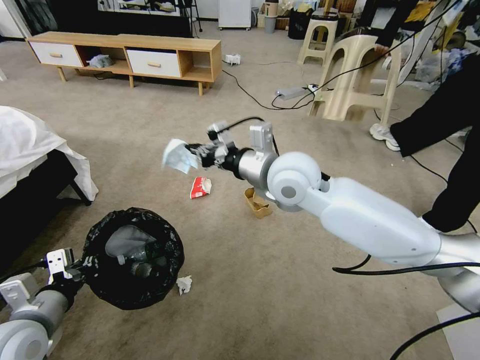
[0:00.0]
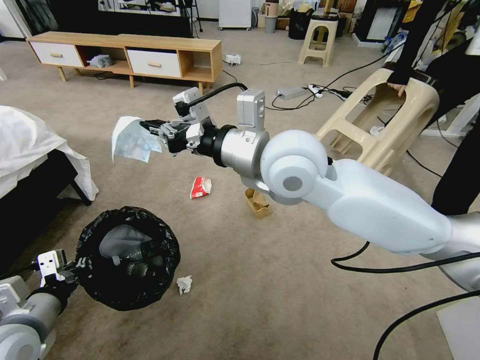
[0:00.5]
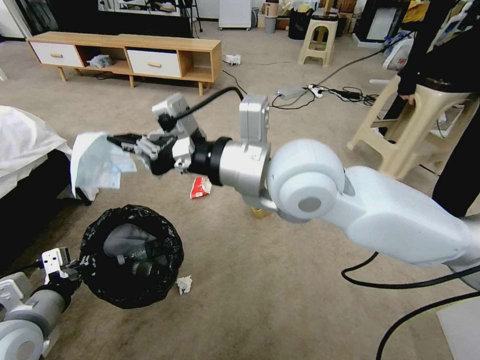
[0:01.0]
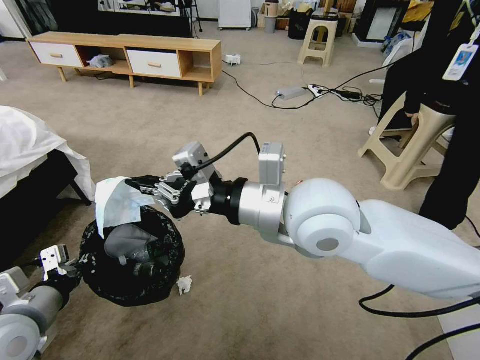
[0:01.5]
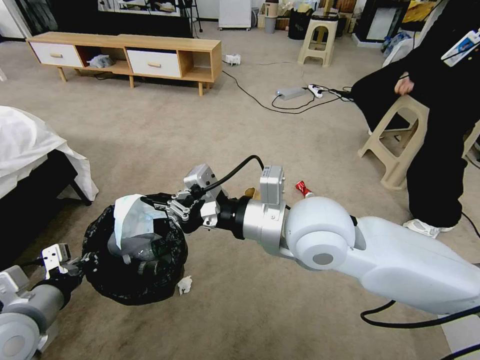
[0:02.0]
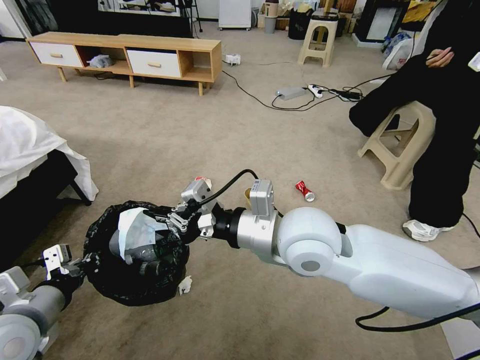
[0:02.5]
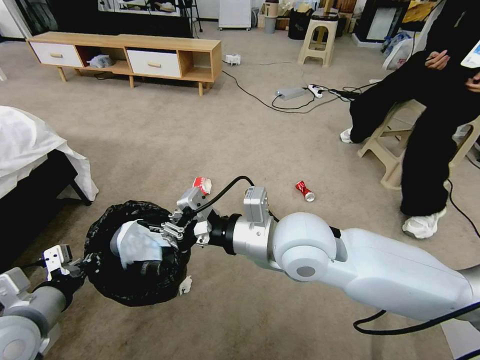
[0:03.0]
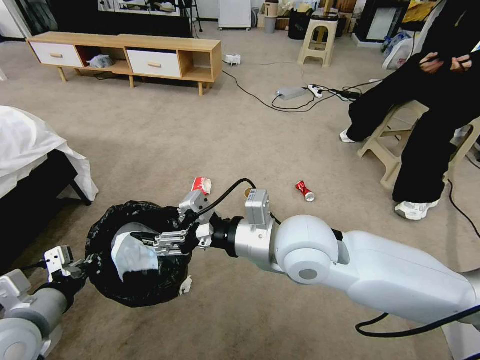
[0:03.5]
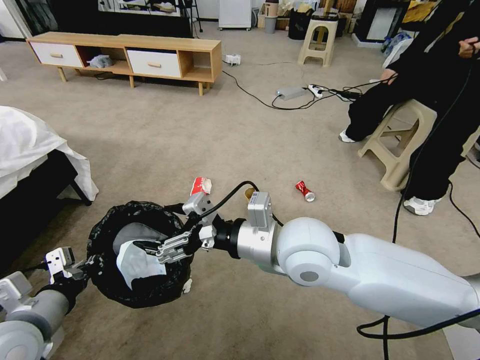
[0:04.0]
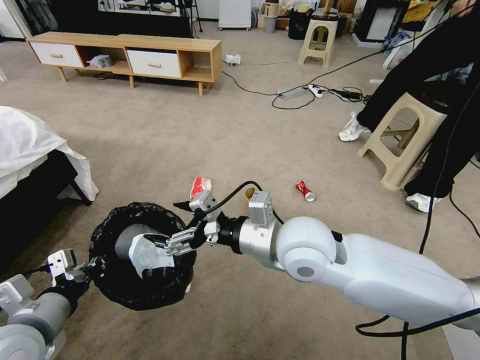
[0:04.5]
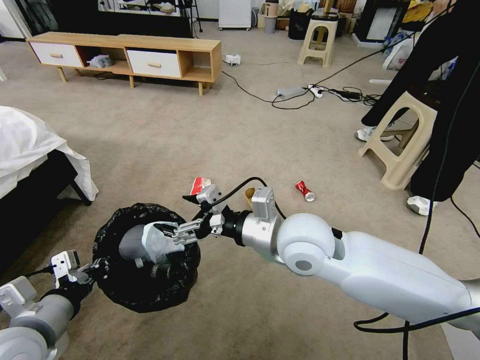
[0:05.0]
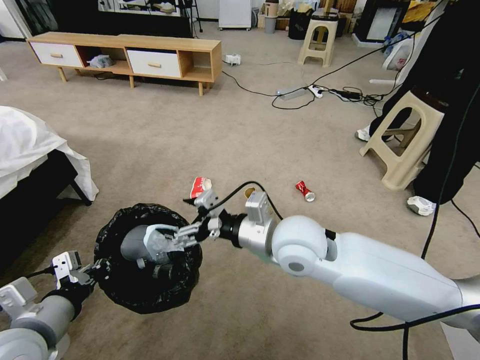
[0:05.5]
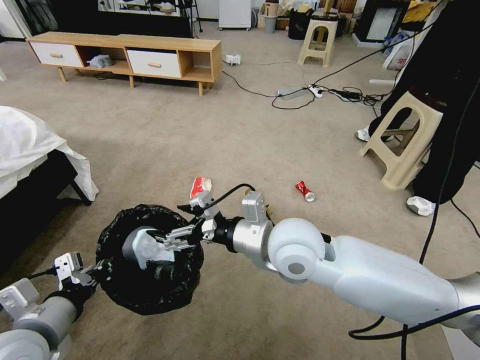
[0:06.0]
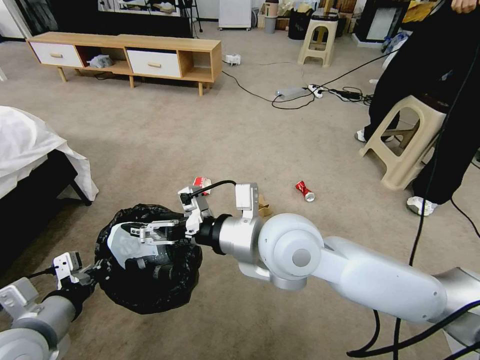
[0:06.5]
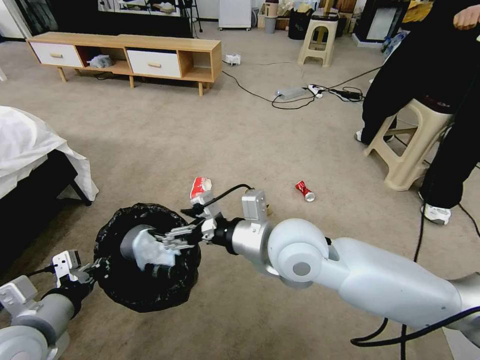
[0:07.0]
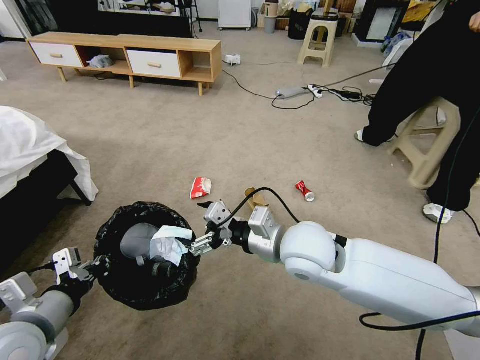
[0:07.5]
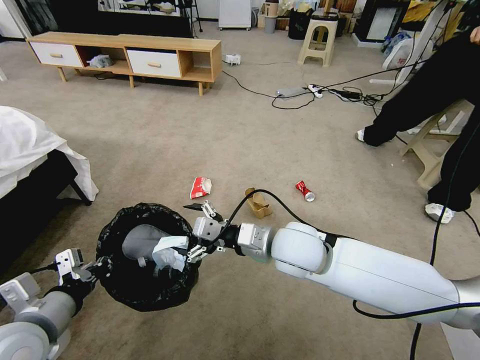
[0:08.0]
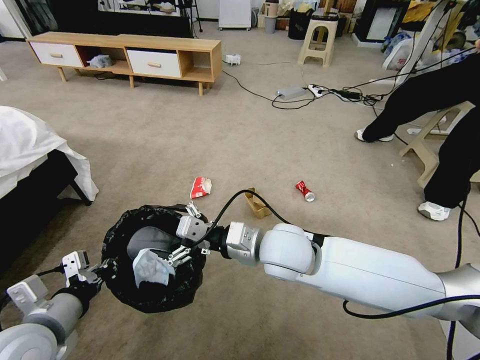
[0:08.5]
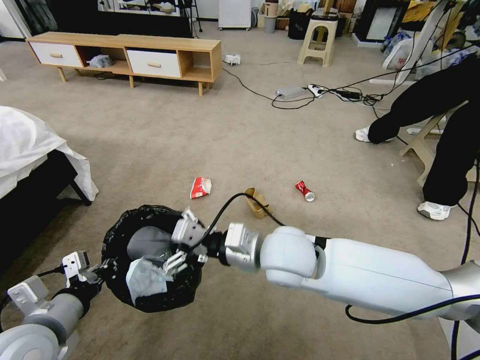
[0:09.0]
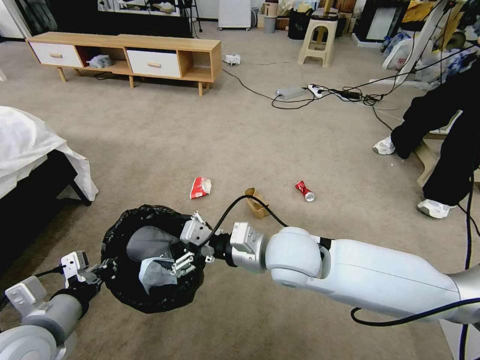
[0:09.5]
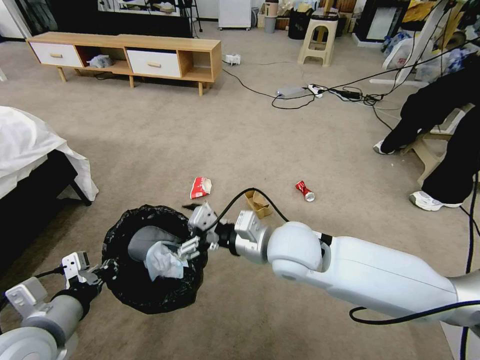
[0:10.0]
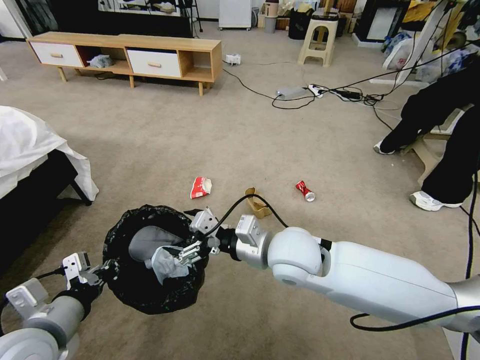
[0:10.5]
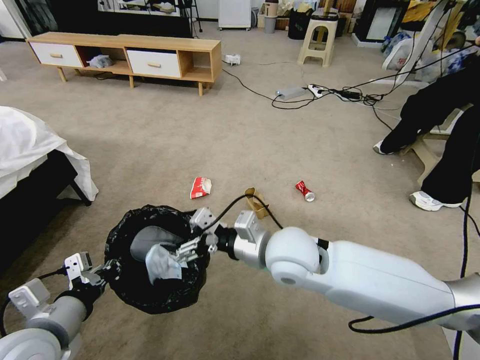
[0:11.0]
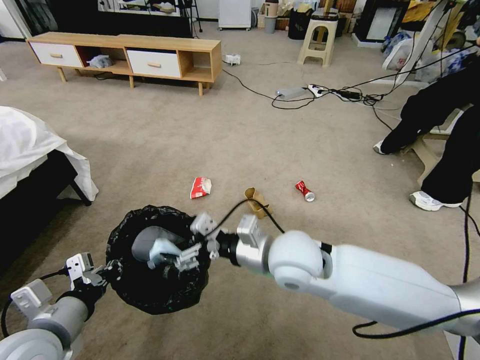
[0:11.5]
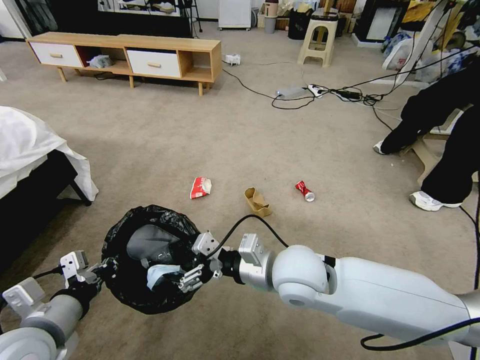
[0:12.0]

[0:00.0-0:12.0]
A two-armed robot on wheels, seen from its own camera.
Task of the whole recording: Pick up the trash bin, then pick up the garbage from the floor and place it into the trash bin.
0:00.0 to 0:02.0: The right gripper is displaced backward by approximately 10 cm.
0:02.0 to 0:04.0: The right gripper opens its fingers.
0:04.0 to 0:06.0: The grippers move only a little.
0:06.0 to 0:08.0: The right gripper ends up about 5 cm from where it was.
0:08.0 to 0:10.0: The grippers make only small movements.
0:10.0 to 0:12.0: The grippers make only small movements.

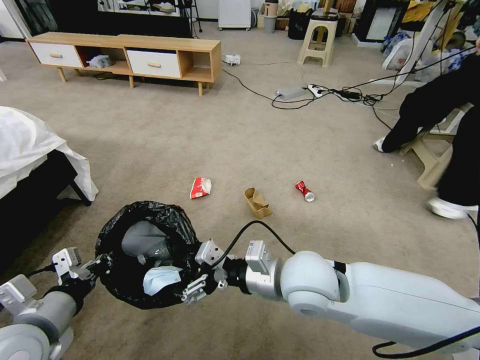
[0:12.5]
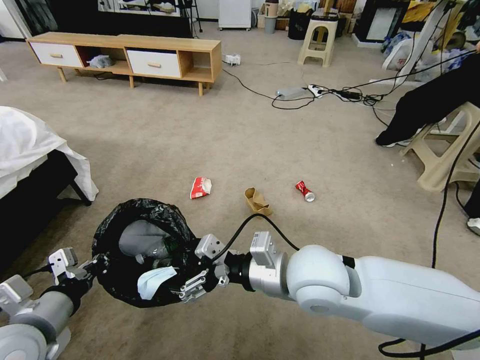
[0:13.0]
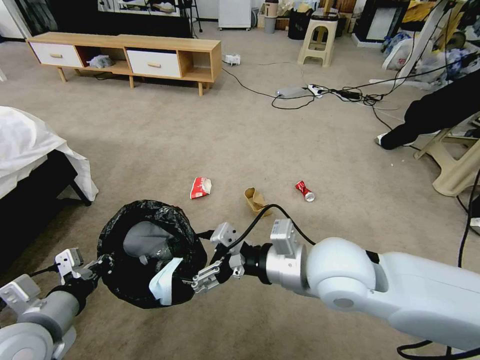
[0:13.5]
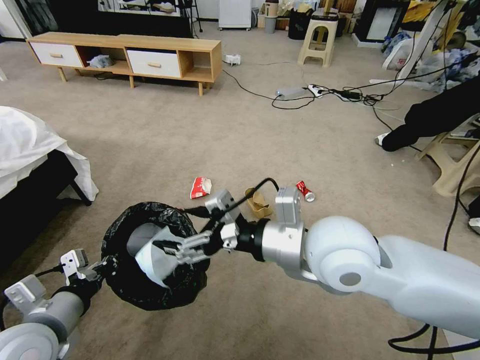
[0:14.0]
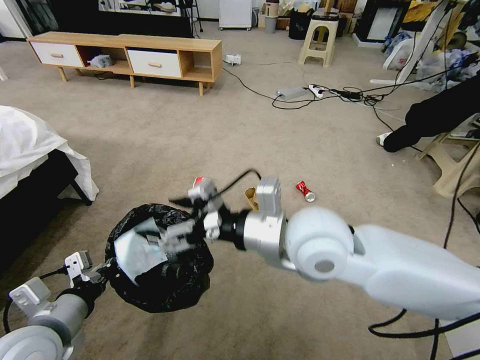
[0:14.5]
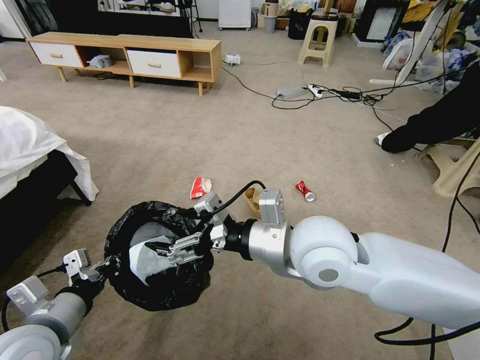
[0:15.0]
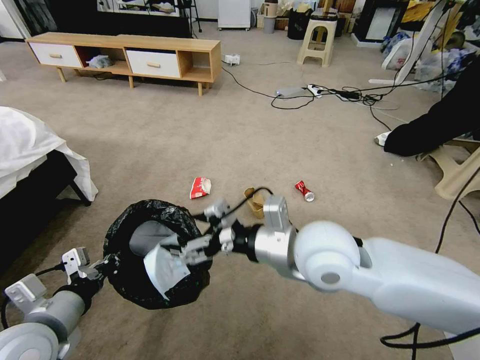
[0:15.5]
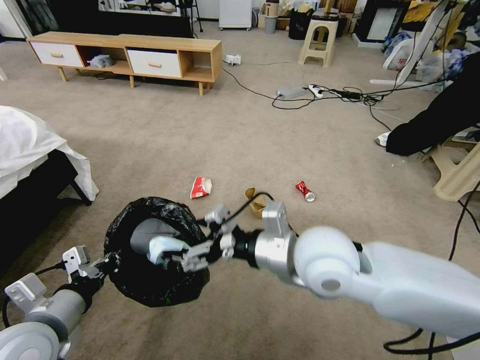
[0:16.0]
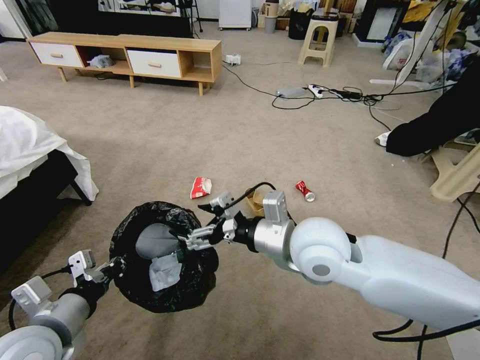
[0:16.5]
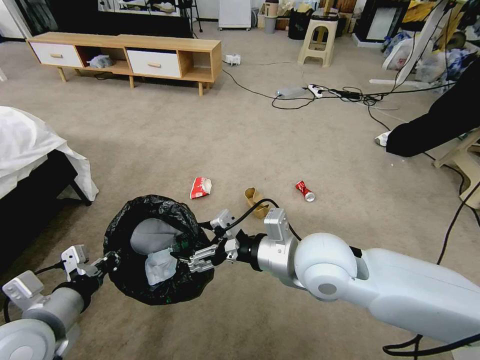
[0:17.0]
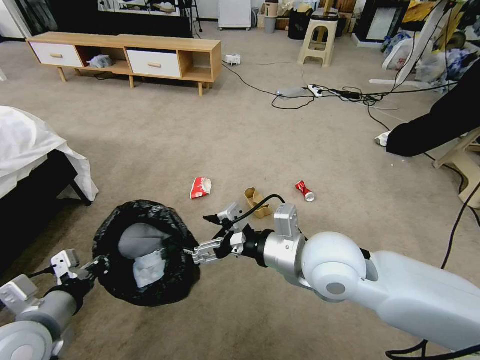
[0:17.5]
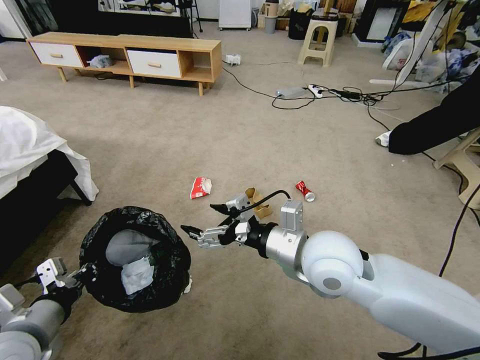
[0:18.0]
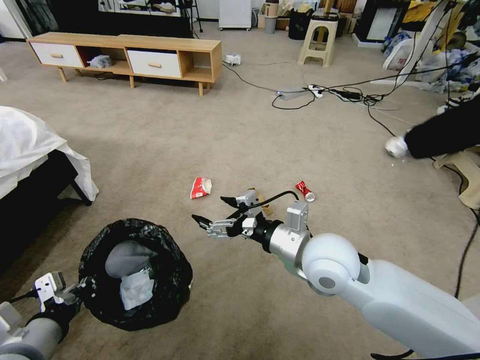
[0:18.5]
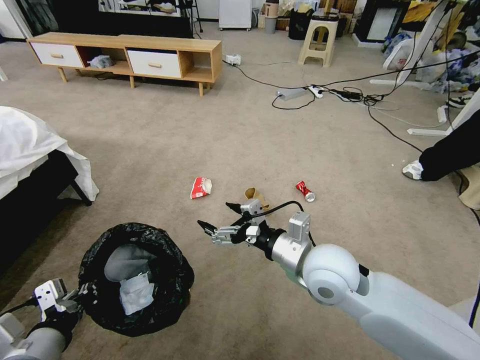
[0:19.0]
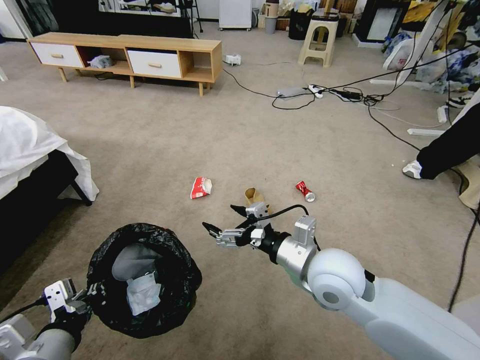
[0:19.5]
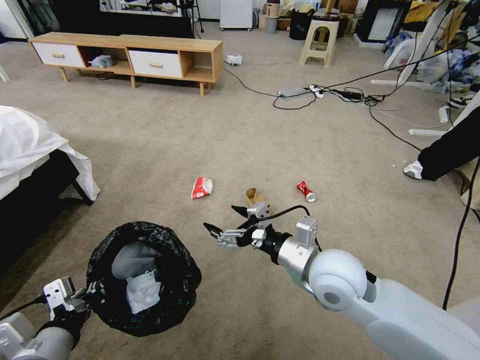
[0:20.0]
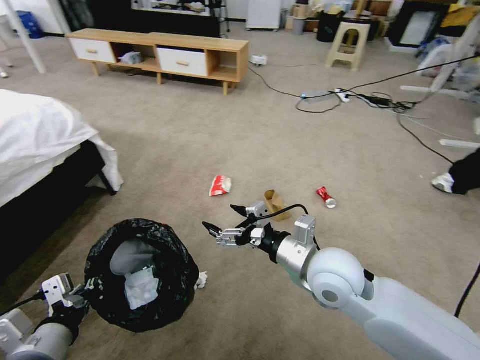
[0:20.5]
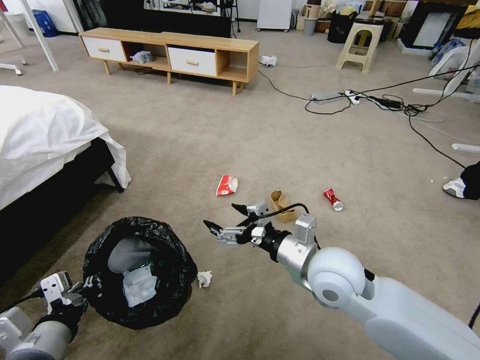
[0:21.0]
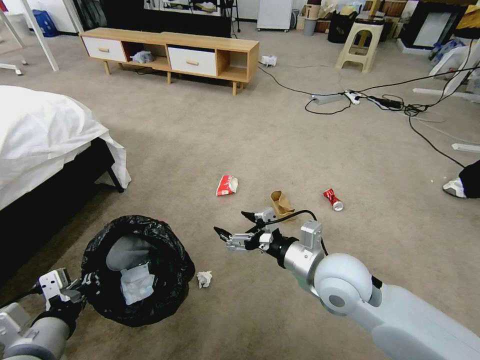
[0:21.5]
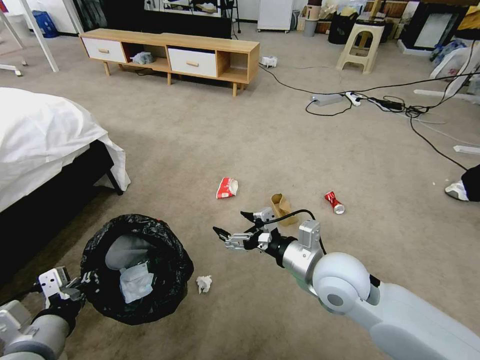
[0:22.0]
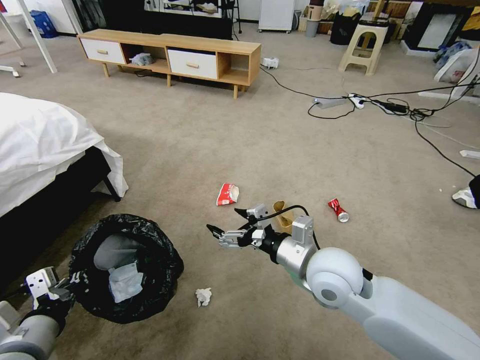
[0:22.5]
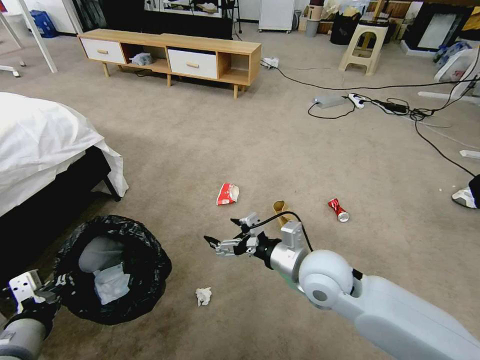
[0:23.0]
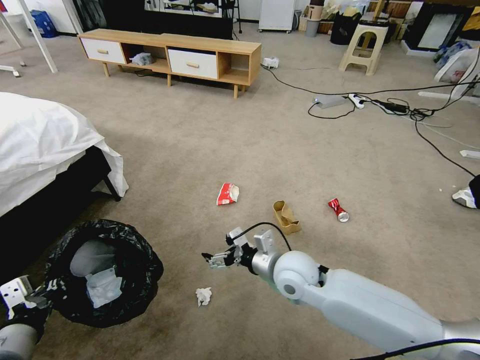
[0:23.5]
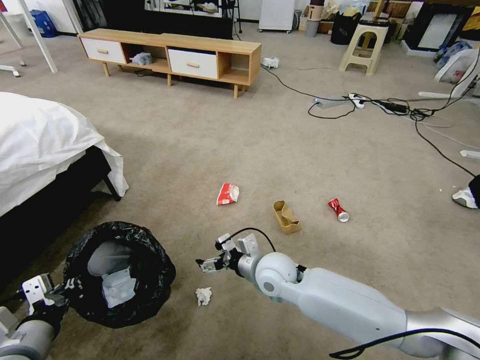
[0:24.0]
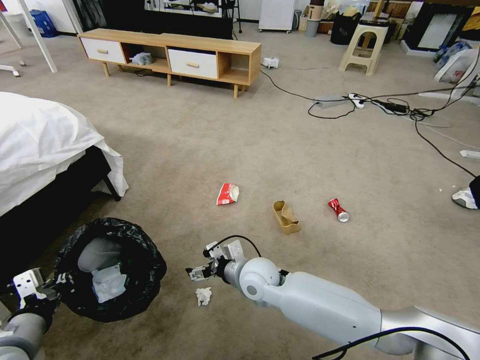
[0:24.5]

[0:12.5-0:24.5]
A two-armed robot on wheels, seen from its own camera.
Task of the whole recording: Pick up the trash bin, then pick up the garbage from the floor and place it into the trash bin.
0:12.5 to 0:14.5: The right gripper heads upward, covering approximately 10 cm.
0:14.5 to 0:16.5: The grippers stay close to where they were, moving slightly.
0:22.5 to 0:24.5: The right gripper goes roughly 20 cm downward, to the left and forward.

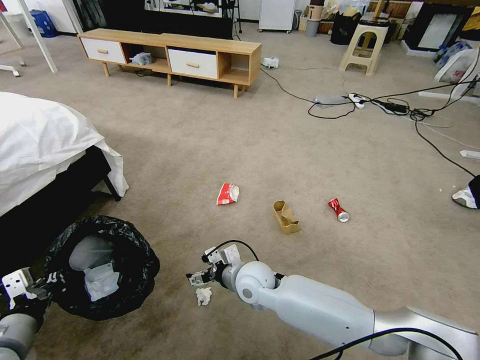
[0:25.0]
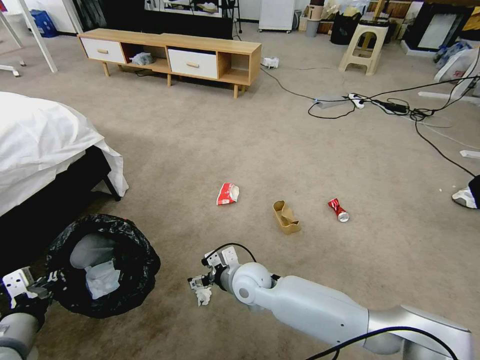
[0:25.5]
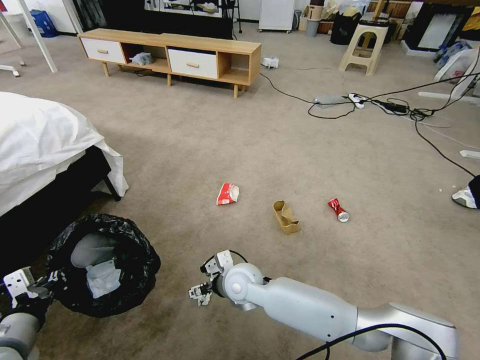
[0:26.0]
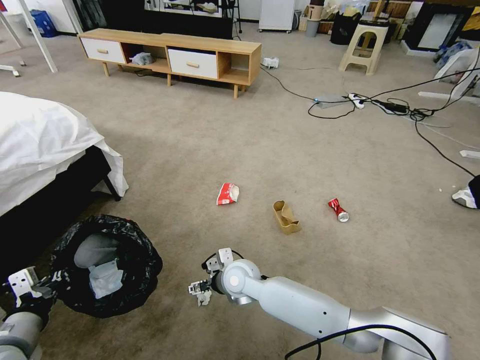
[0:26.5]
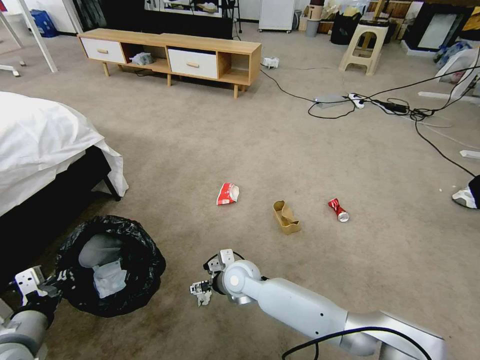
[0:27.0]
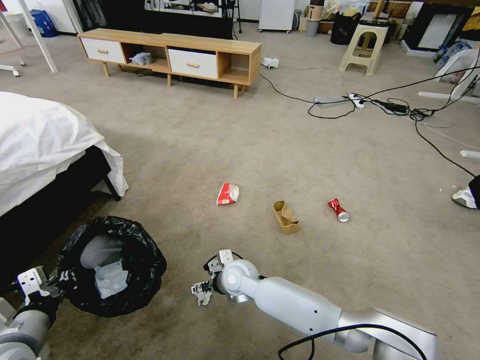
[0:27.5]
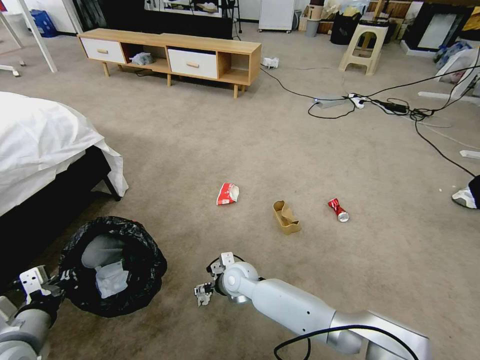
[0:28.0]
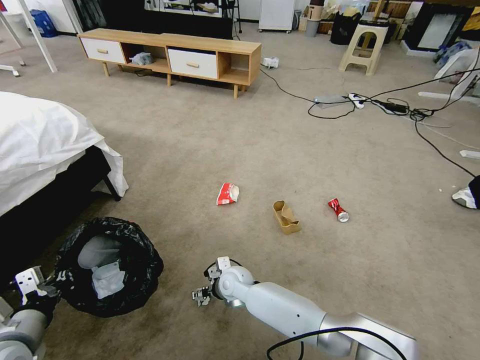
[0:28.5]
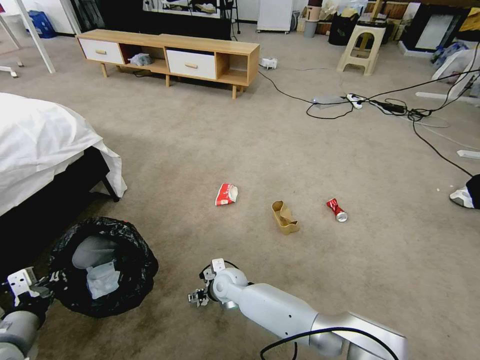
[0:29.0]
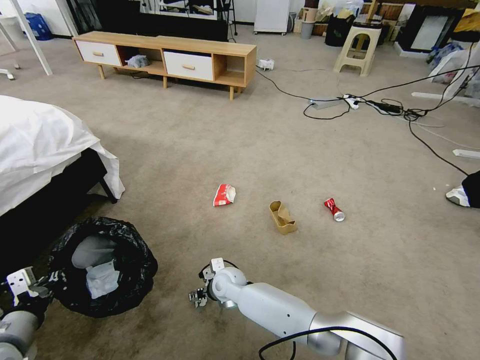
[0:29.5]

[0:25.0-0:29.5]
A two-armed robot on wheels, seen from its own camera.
Task of the whole recording: Pick up the trash bin, then pick up the garbage from the floor and place it into the trash bin.
0:25.0 to 0:27.0: The right gripper changes place by roughly 5 cm.
0:27.0 to 0:29.5: The right gripper heads downward, covering approximately 5 cm.
